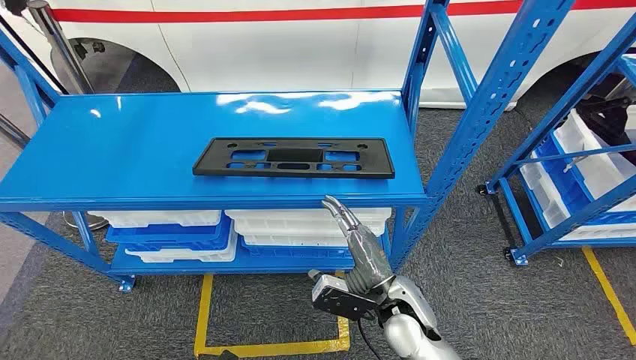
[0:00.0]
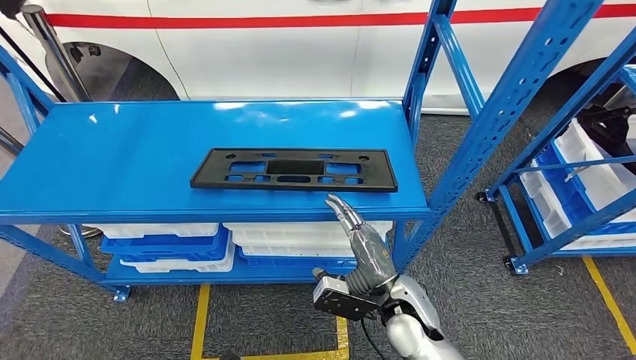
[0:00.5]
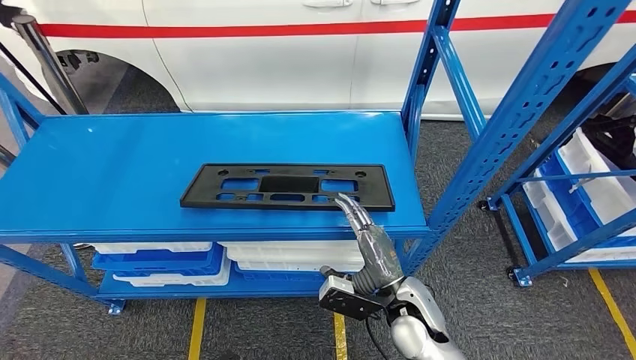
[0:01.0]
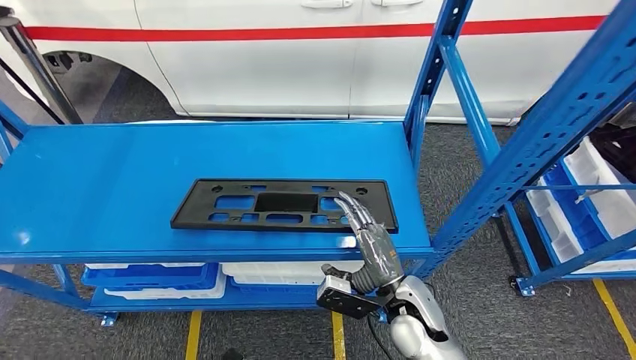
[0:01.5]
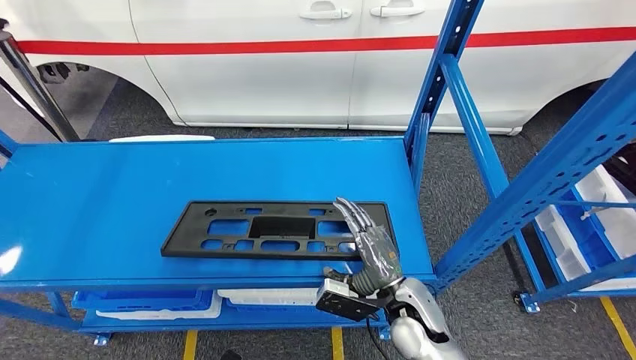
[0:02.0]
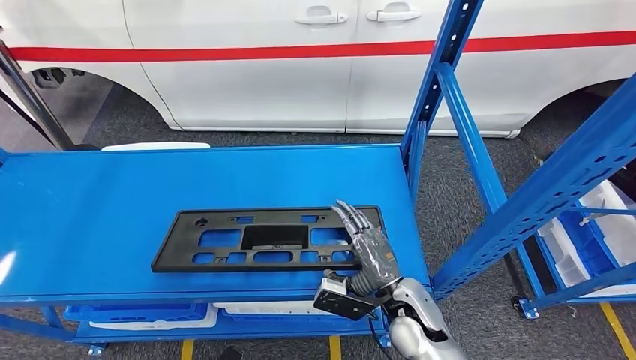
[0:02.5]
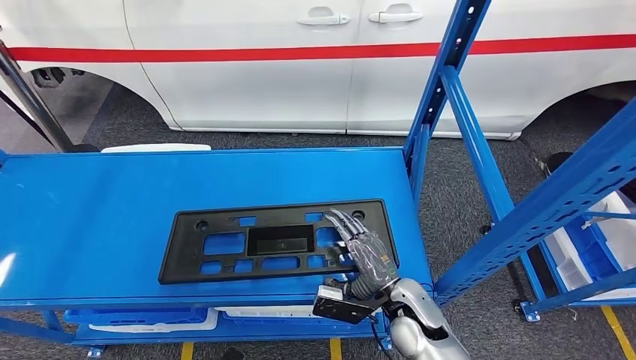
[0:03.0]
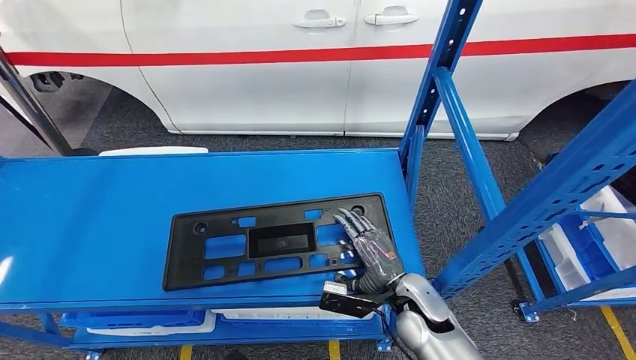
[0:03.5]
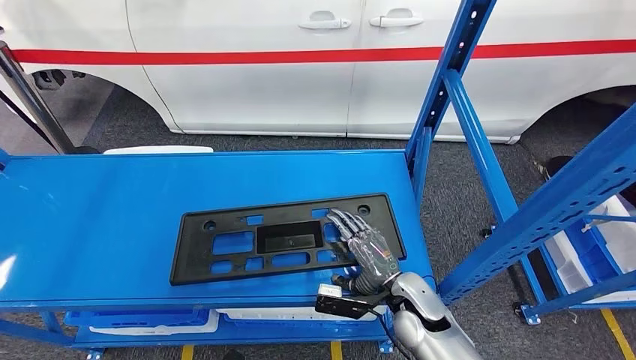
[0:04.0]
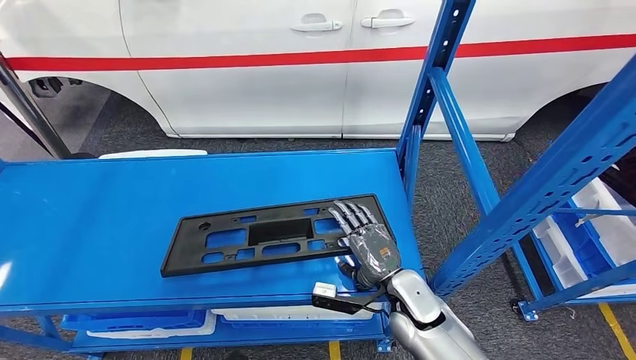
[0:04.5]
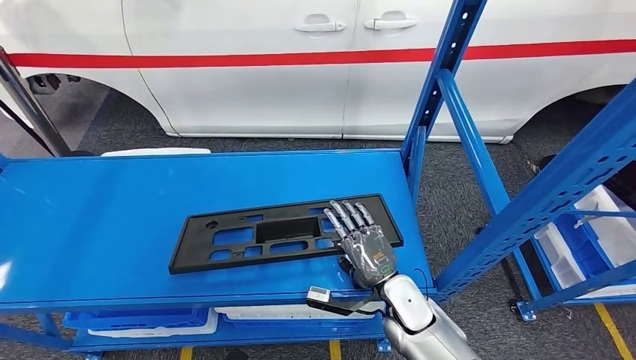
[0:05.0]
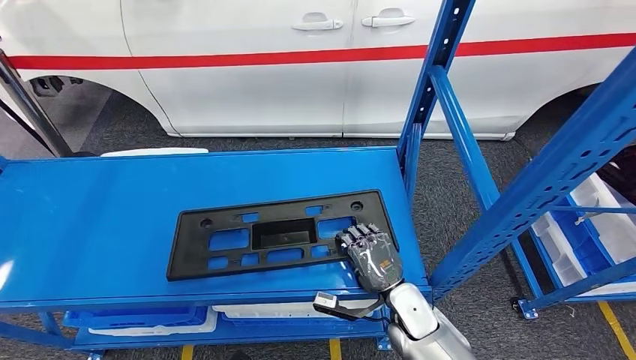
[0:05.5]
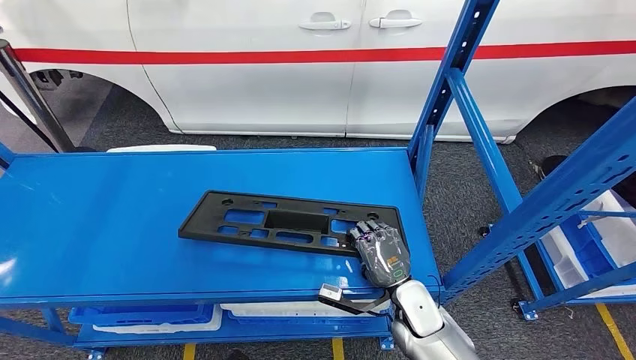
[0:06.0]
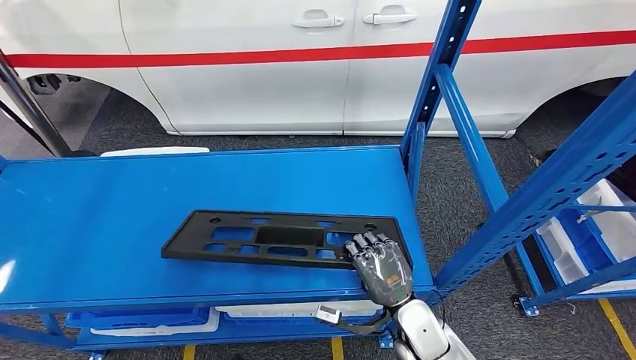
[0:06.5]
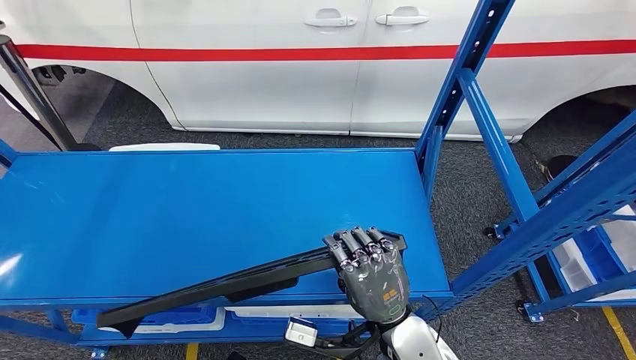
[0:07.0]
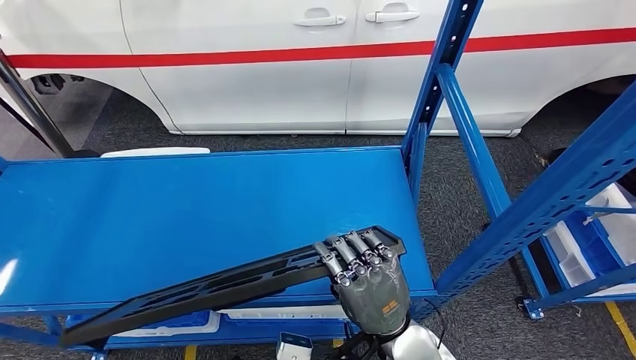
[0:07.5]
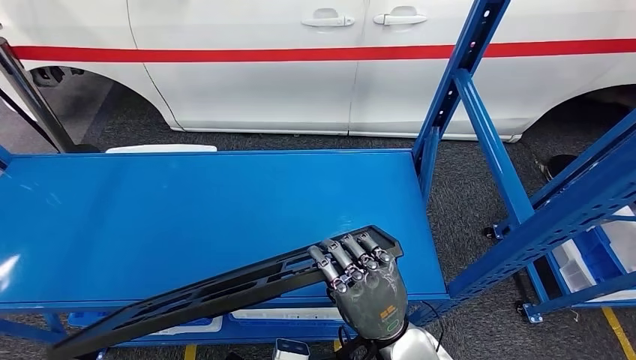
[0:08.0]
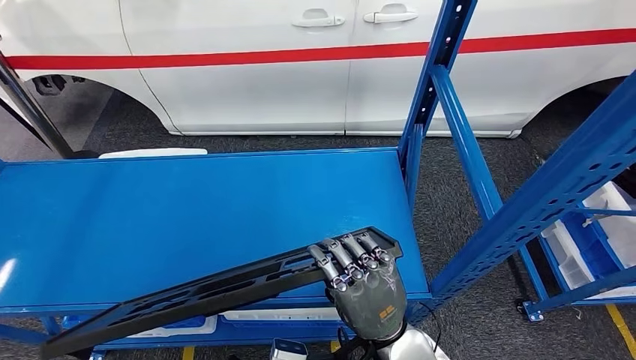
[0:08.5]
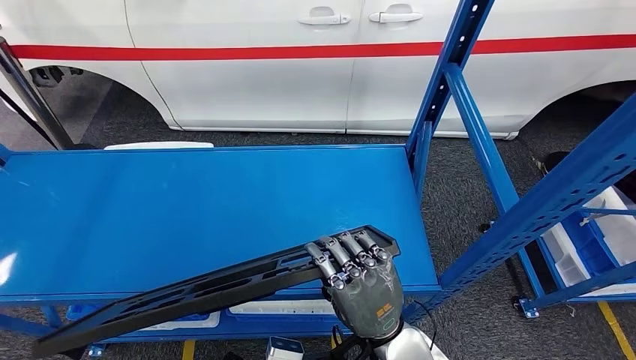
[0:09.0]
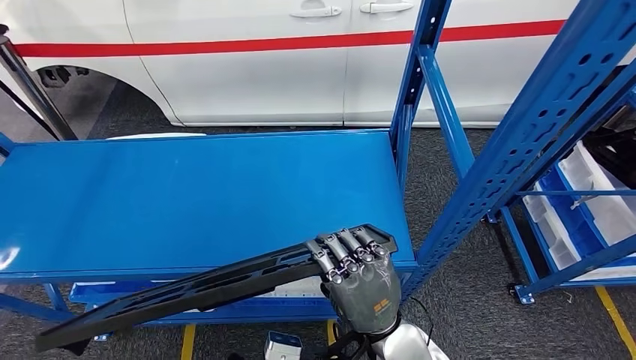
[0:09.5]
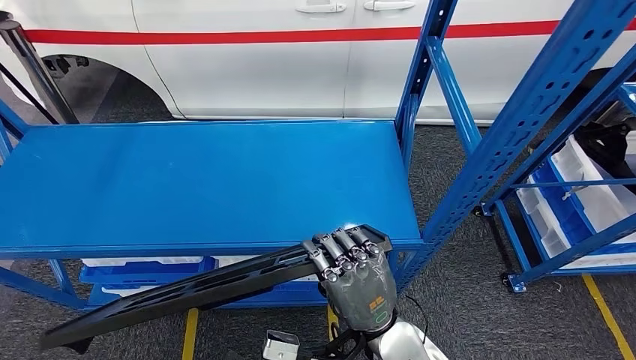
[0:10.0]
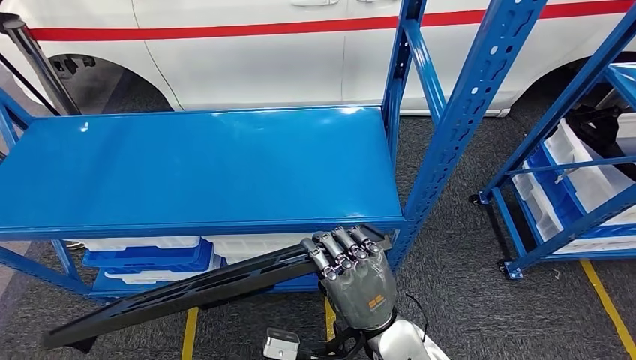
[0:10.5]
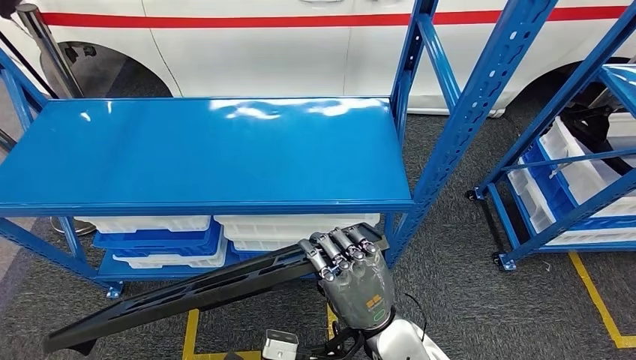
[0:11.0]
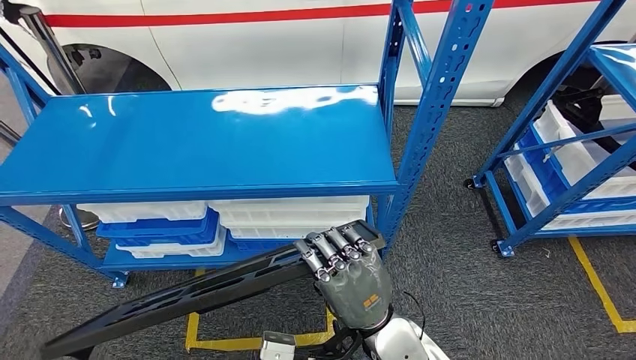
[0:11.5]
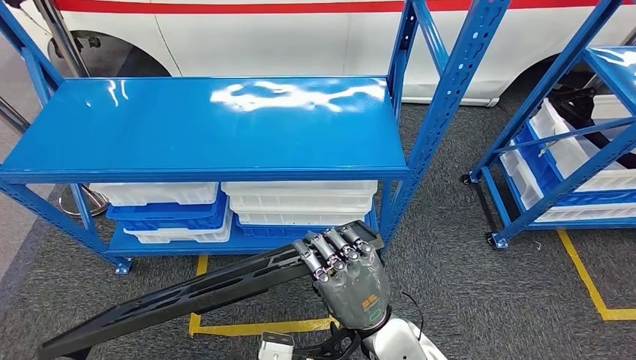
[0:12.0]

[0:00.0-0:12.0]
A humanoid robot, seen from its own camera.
Step, 0:00.0 to 0:11.5: Pick up the large material from the shelf.

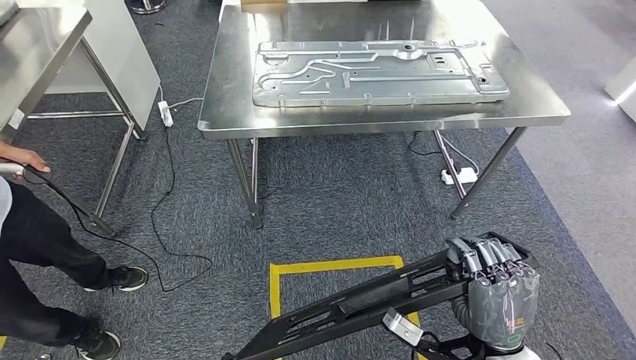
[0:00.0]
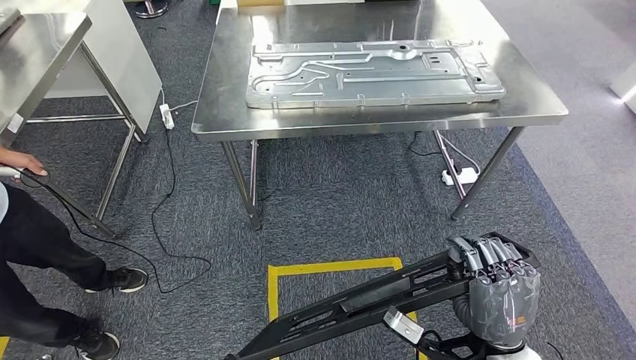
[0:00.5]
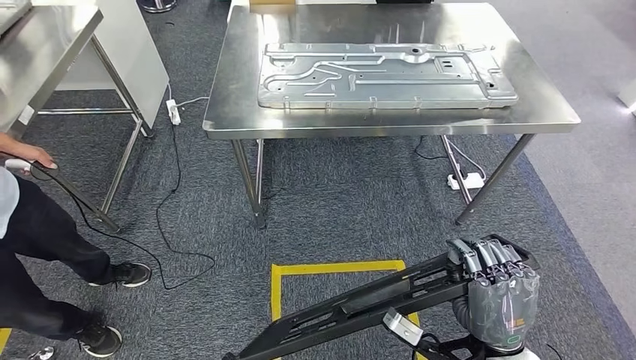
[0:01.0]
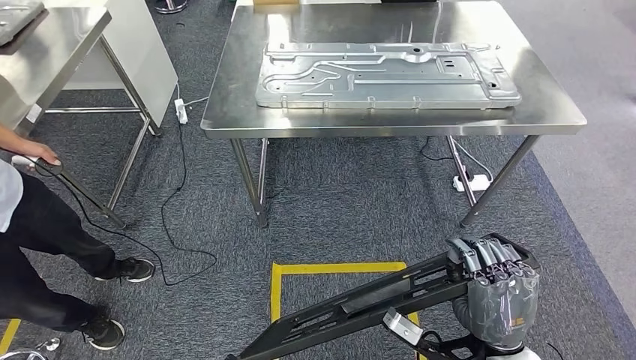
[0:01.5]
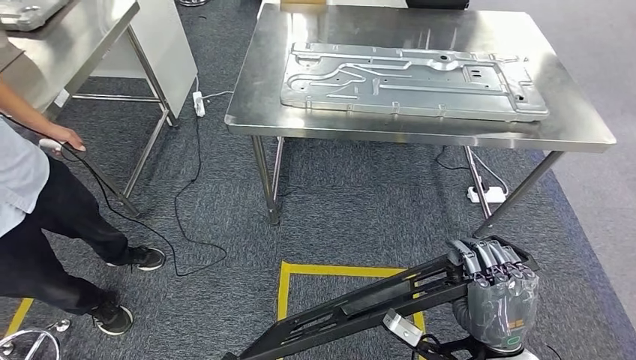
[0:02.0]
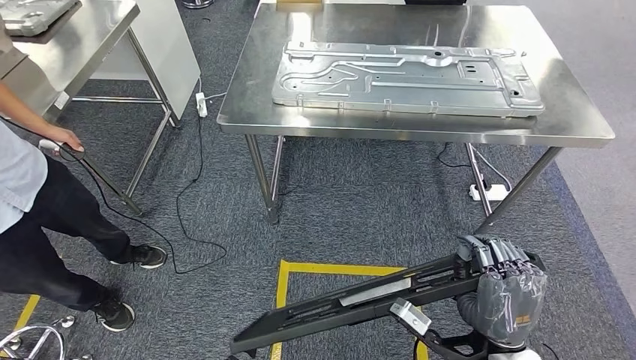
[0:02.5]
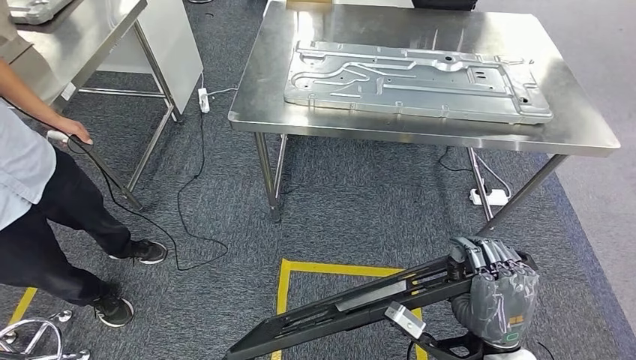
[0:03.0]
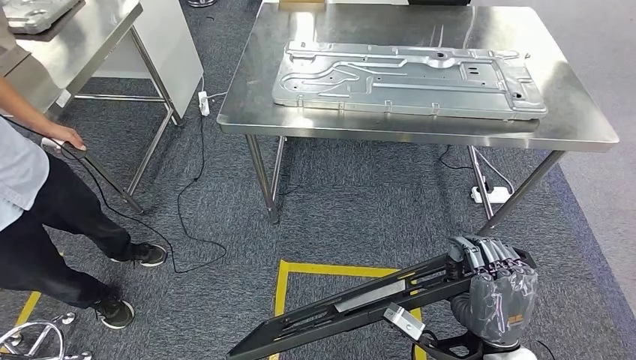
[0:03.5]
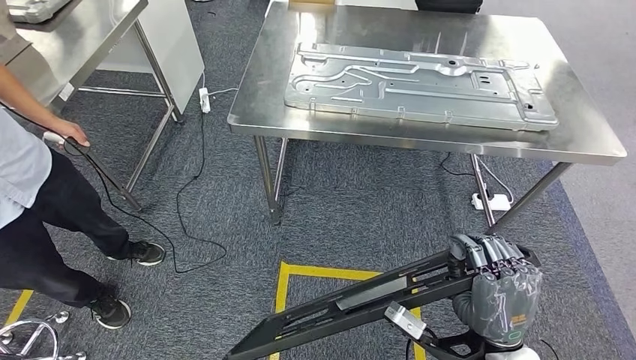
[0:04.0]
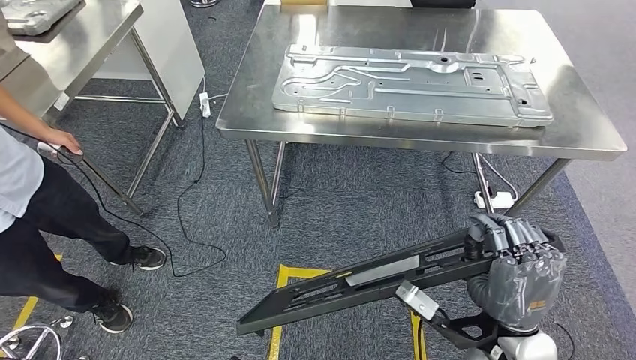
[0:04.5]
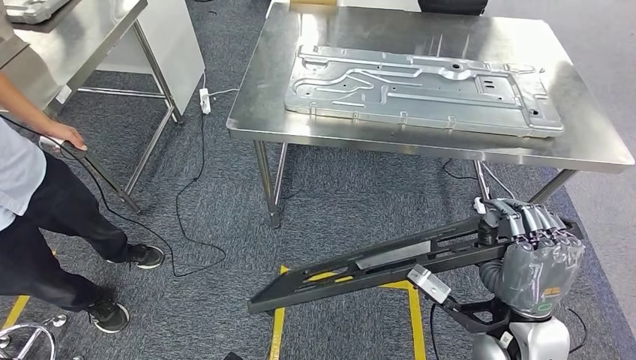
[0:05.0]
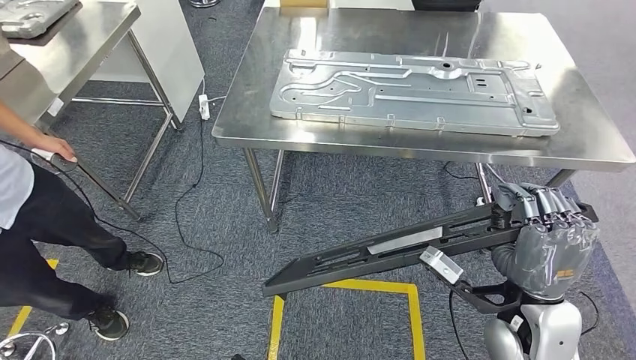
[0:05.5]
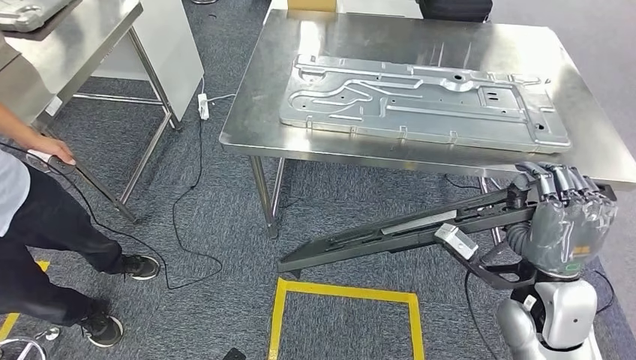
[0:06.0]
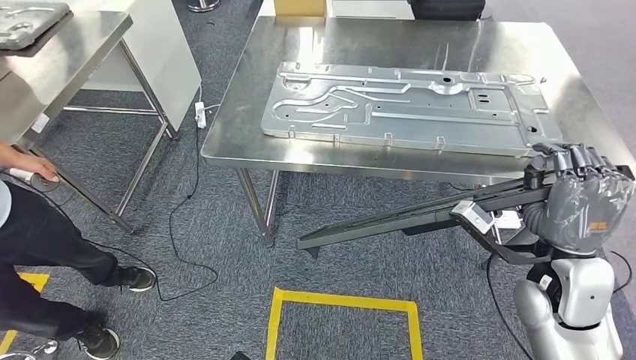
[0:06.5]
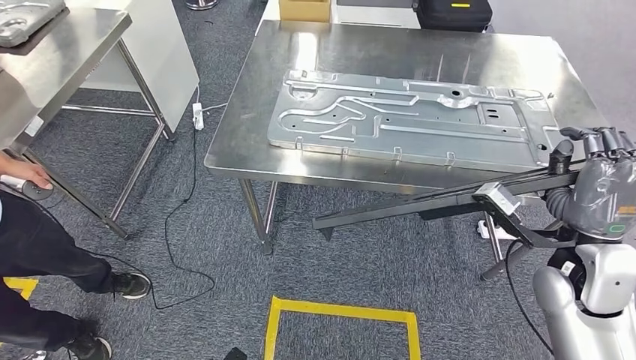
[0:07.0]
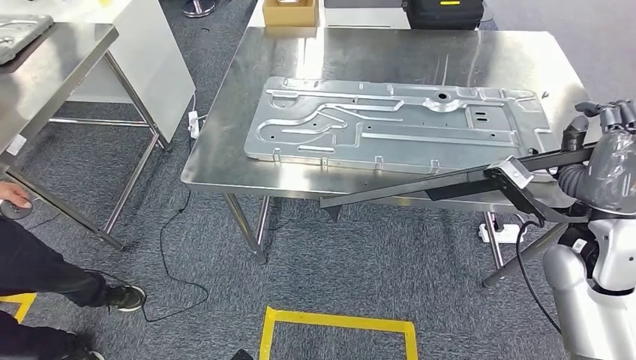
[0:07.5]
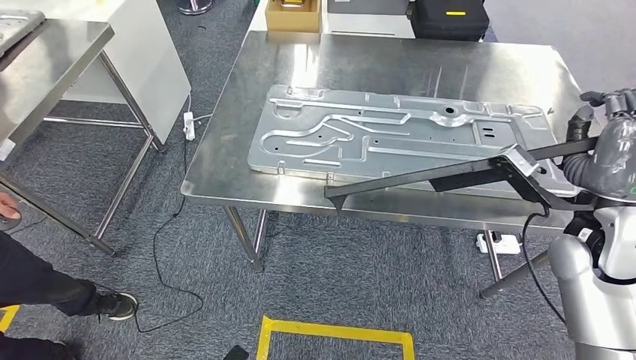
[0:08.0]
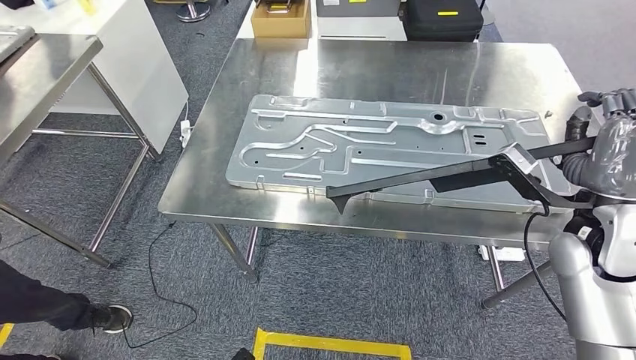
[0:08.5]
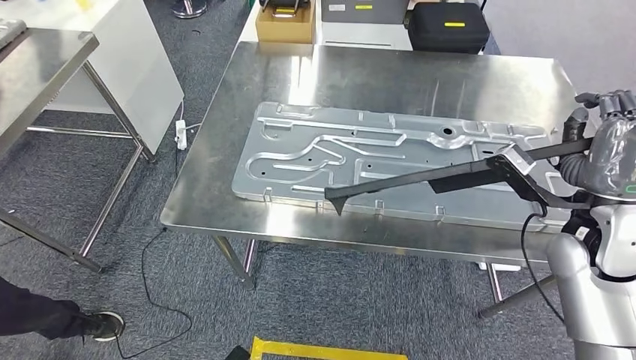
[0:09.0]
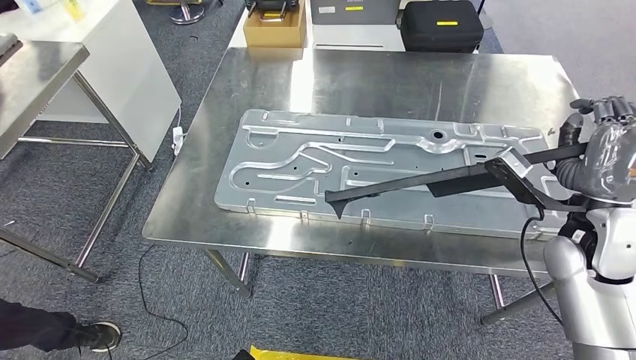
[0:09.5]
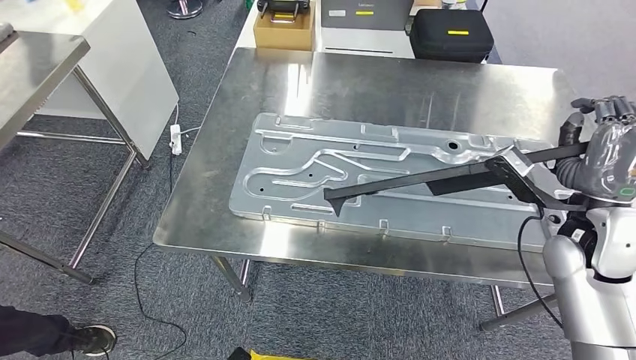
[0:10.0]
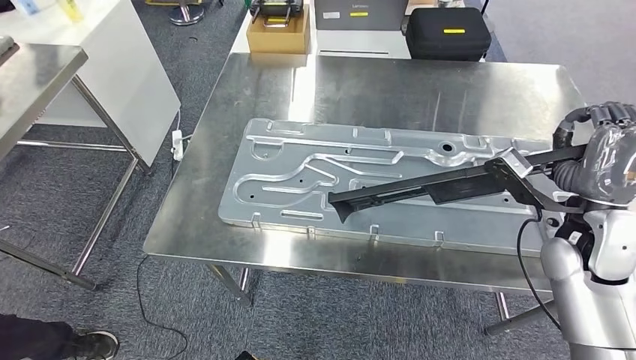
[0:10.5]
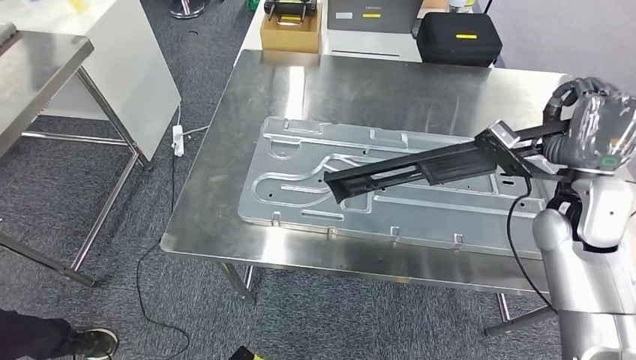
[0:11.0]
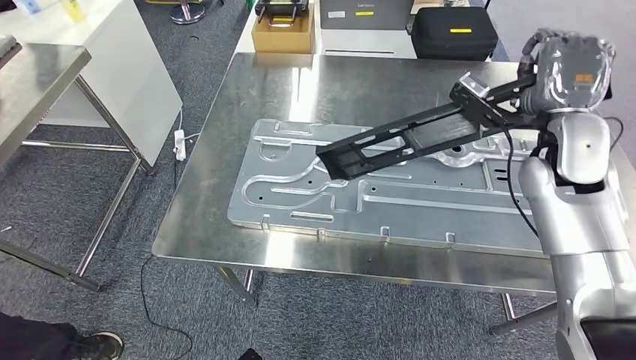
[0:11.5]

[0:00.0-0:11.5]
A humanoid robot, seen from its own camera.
Step, 0:00.0 to 0:06.0: Move the large material to the front of the workbench.
